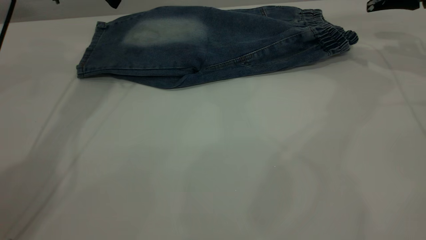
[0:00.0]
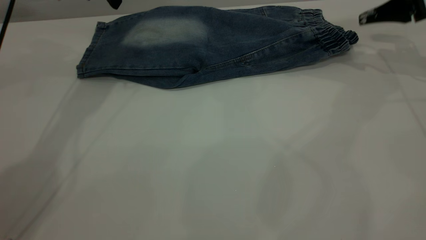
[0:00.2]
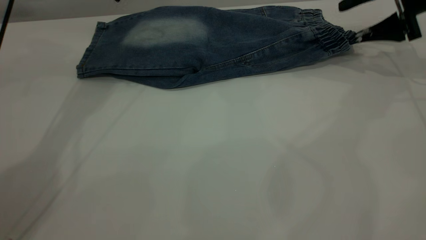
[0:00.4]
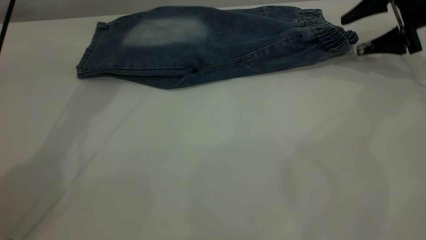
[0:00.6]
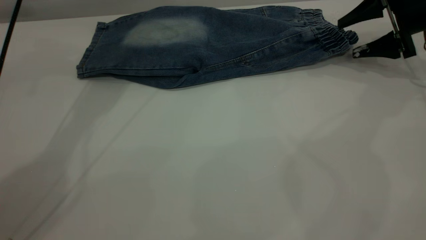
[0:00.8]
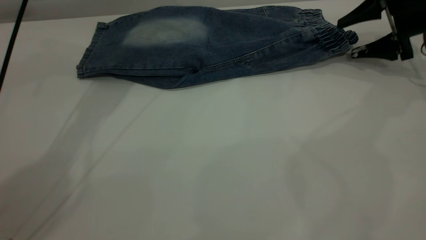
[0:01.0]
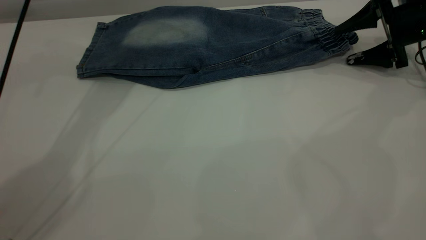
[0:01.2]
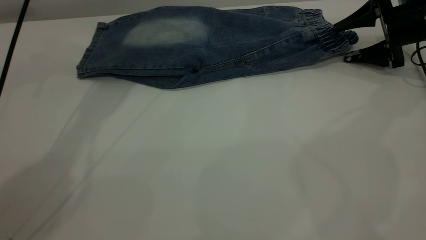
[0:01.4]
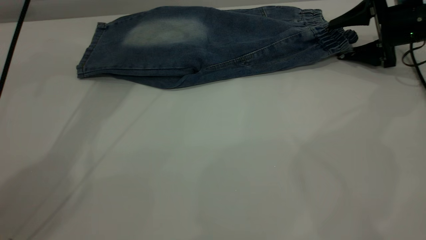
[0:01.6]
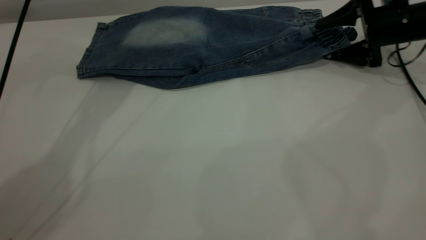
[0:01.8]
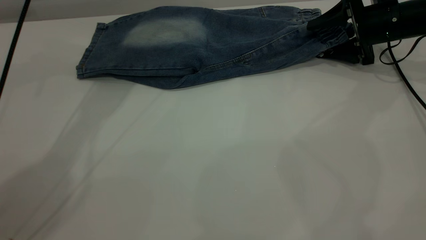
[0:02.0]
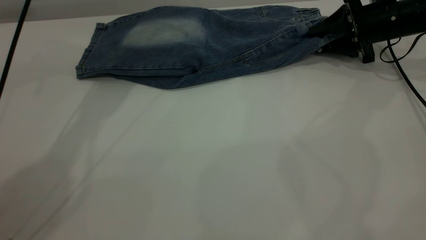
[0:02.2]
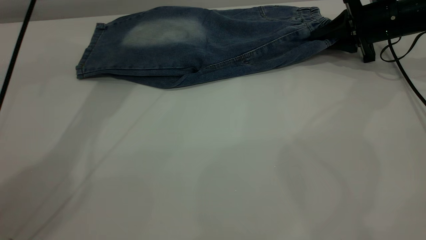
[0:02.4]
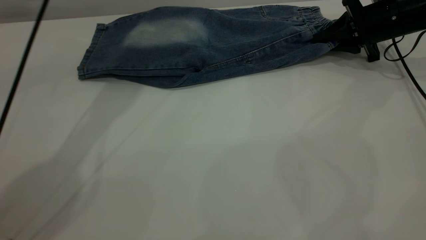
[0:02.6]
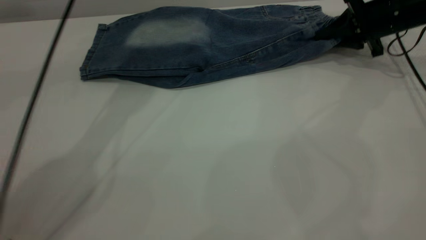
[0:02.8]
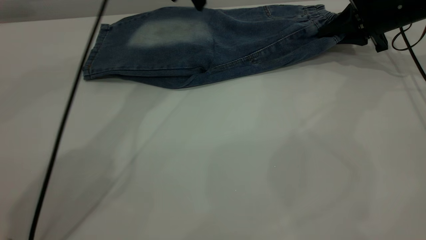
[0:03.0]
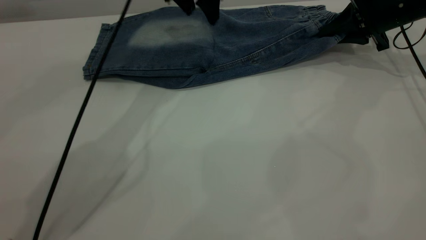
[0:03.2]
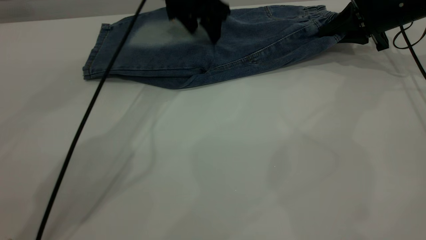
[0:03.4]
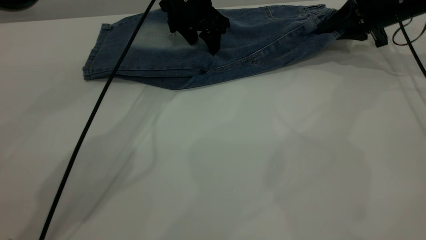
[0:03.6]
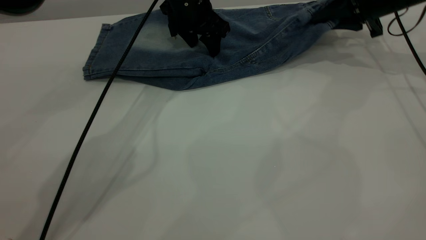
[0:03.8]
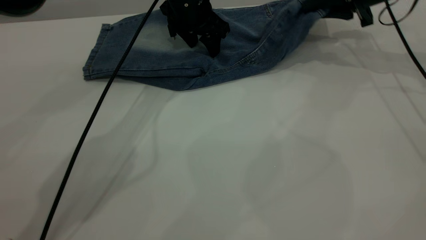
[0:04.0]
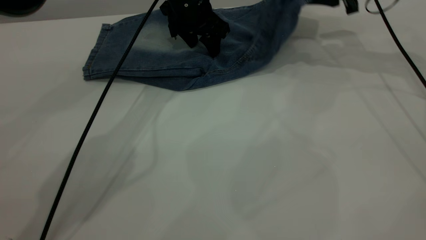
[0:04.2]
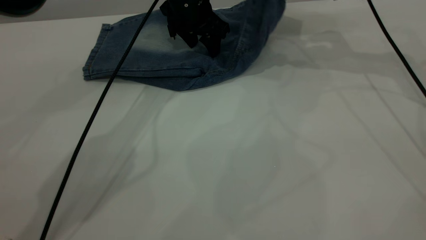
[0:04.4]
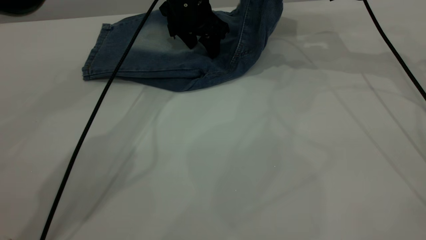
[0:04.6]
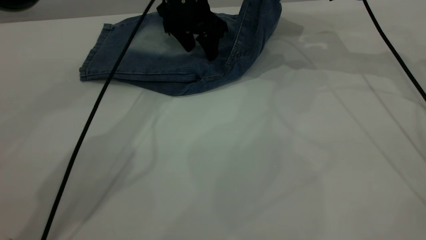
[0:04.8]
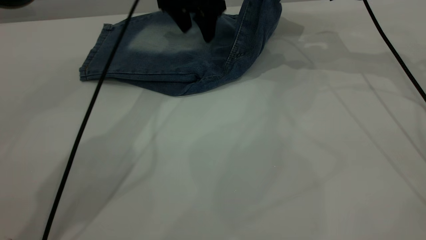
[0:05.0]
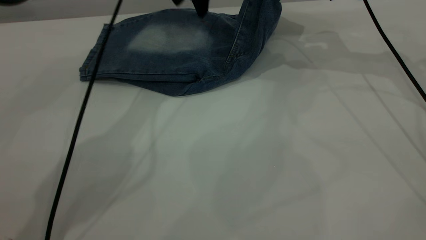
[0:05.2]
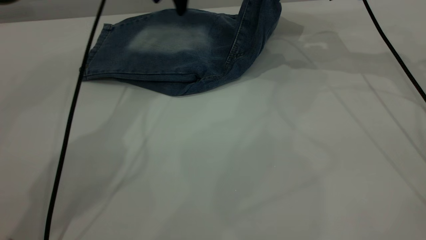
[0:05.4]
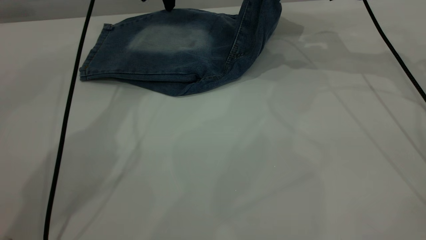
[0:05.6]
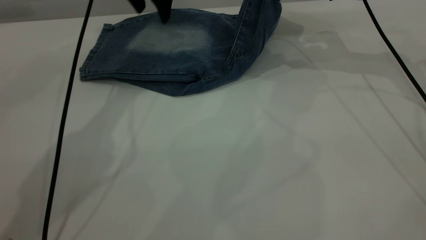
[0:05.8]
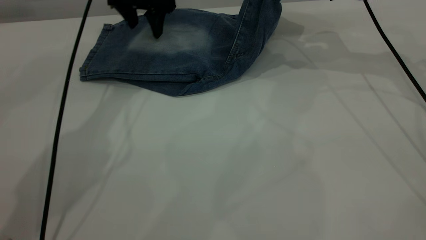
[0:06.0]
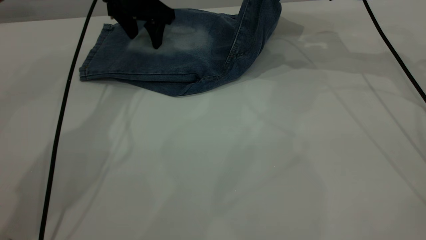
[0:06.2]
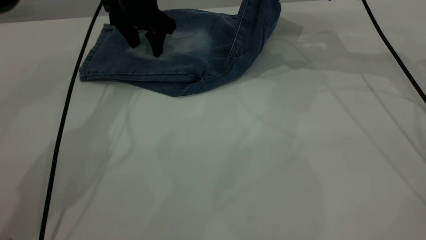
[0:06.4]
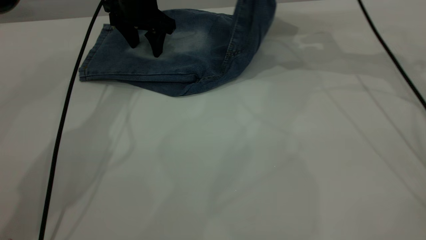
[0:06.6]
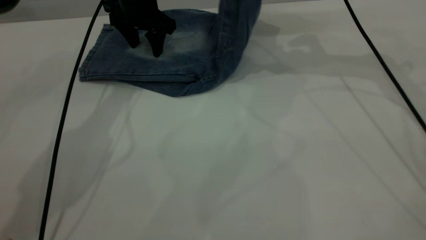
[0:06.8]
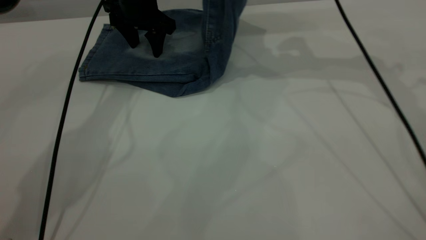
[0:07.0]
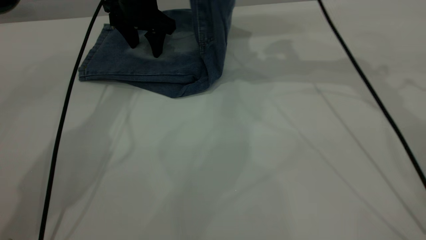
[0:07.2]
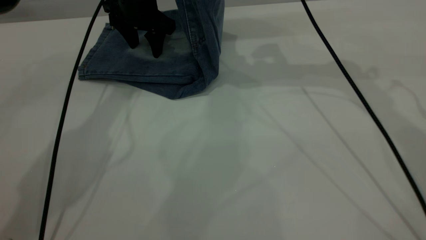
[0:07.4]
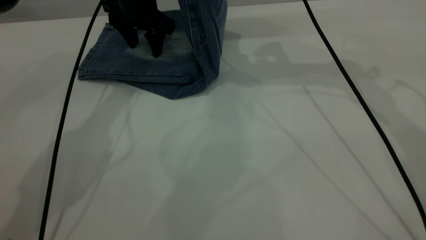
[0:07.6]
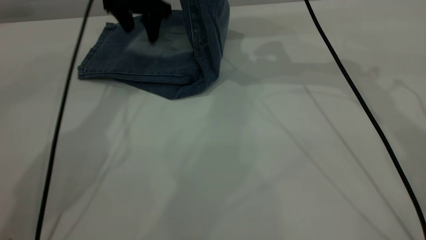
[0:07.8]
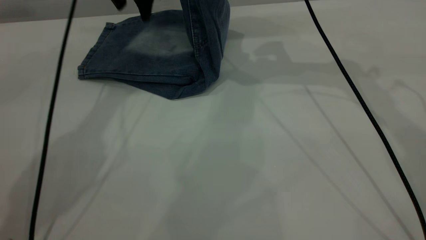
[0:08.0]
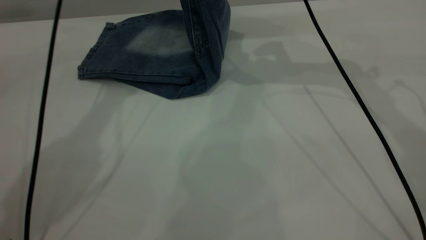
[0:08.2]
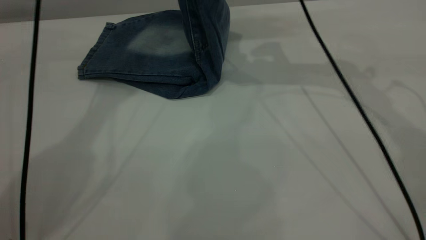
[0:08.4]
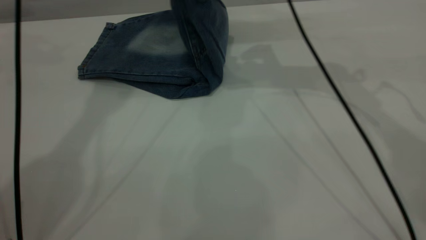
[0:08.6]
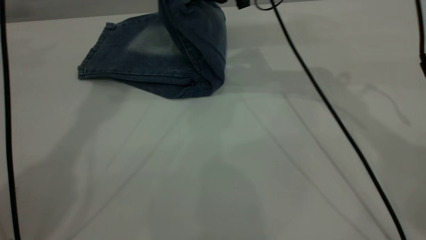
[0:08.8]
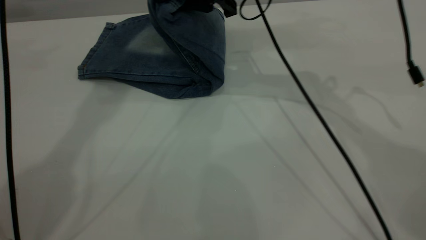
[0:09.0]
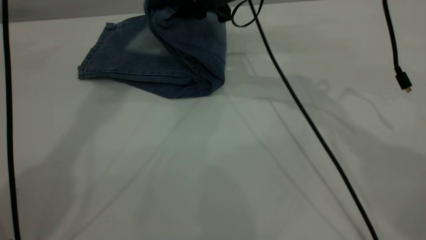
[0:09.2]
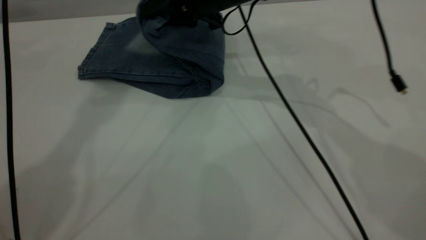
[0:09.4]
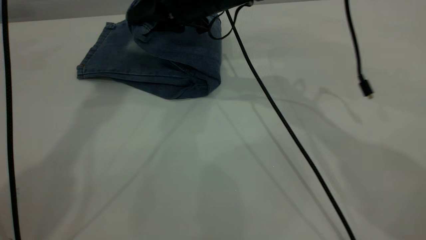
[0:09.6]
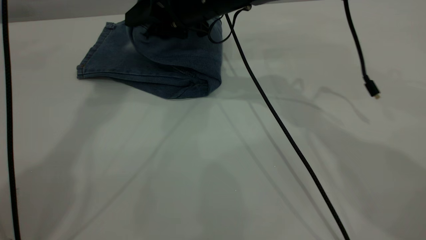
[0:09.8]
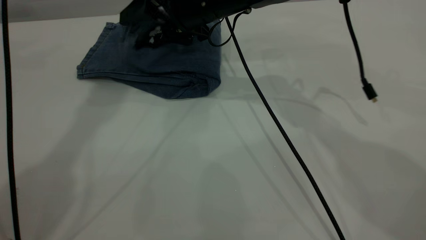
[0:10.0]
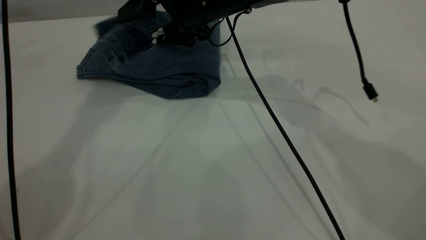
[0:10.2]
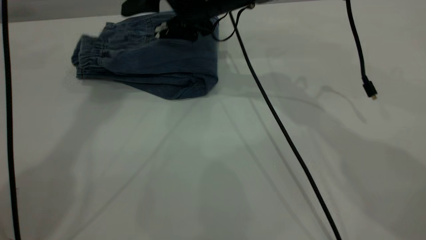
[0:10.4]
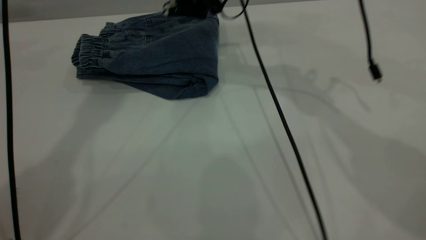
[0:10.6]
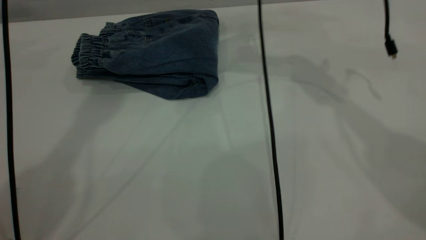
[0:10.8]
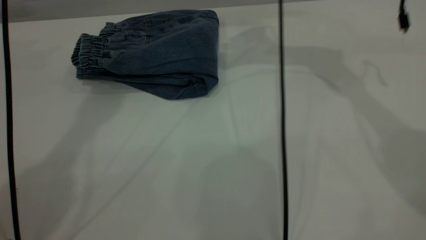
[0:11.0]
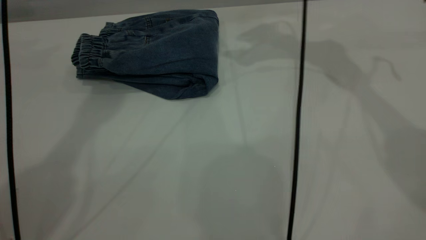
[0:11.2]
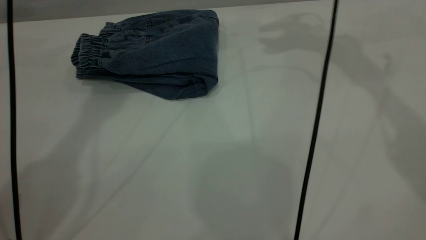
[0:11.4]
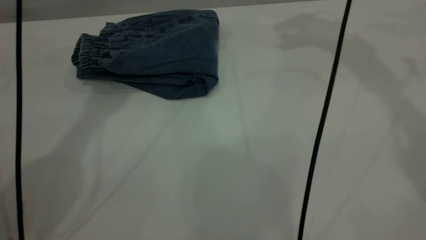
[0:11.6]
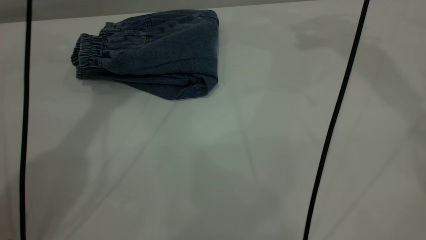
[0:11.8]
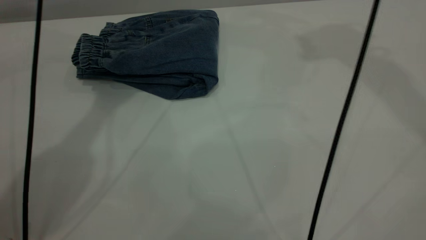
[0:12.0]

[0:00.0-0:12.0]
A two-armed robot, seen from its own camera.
Step, 0:00.0 to 0:10.8: Fold your pants from right to left.
0:00.0 to 0:01.6: The left gripper changes place by approximately 5 cm. Meanwhile the right gripper travels downward by about 10 cm.
0:01.6 to 0:03.0: The right gripper closes its fingers. The left gripper is displaced to the right and downward by about 10 cm.
0:03.0 to 0:04.4: The right gripper shifts approximately 15 cm upward and to the left. Meanwhile the left gripper travels downward by some 10 cm.
0:04.4 to 0:06.0: The left gripper goes some 10 cm to the left.
0:06.0 to 0:07.6: The right gripper shifts roughly 10 cm to the left.
0:07.6 to 0:09.0: The right gripper heads to the left, covering approximately 5 cm, while the left gripper travels upward by roughly 25 cm.
0:09.0 to 0:10.4: The right gripper opens up.
0:10.4 to 0:12.0: The right gripper is displaced upward and to the right by roughly 35 cm. The left gripper heads downward, covering about 10 cm.

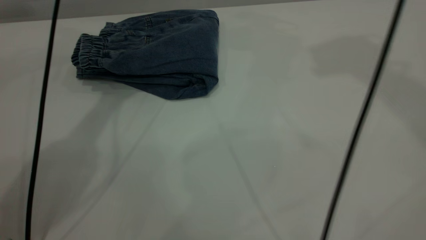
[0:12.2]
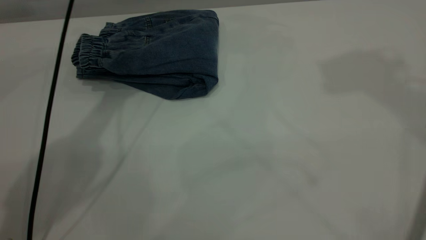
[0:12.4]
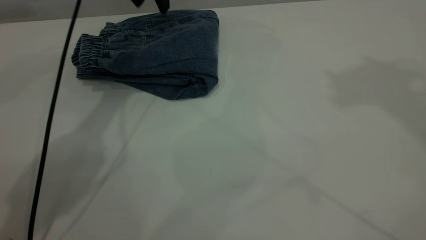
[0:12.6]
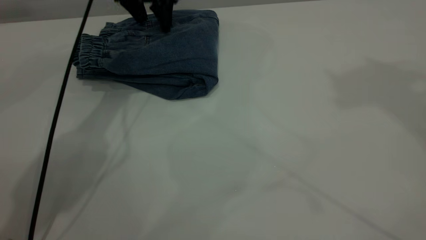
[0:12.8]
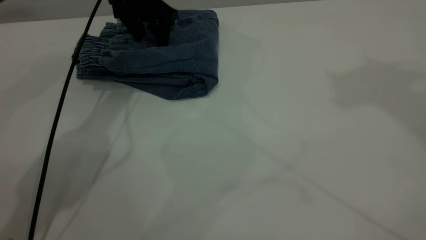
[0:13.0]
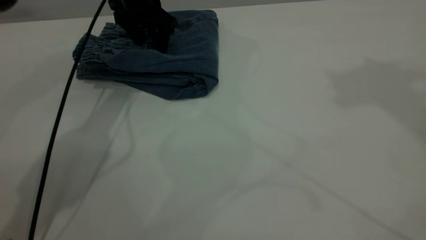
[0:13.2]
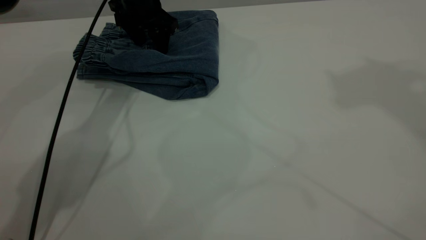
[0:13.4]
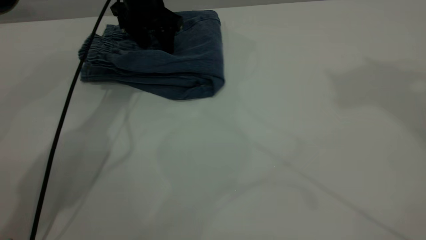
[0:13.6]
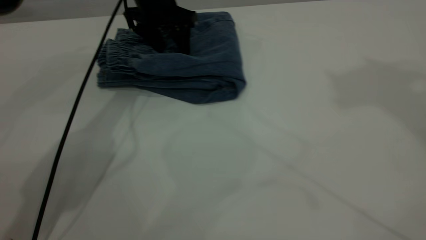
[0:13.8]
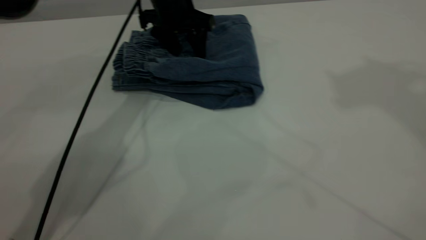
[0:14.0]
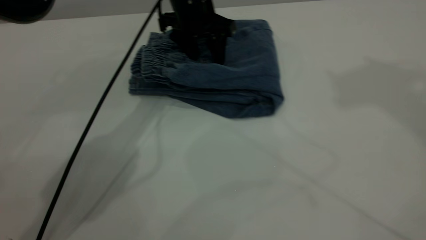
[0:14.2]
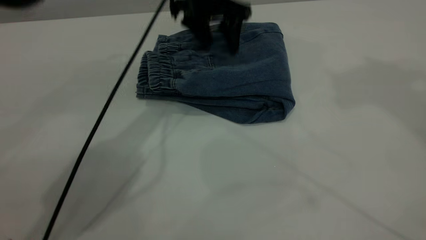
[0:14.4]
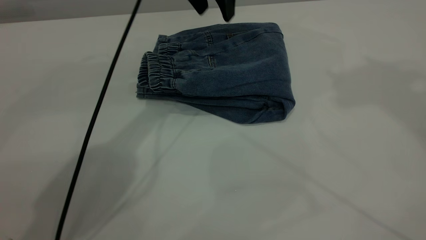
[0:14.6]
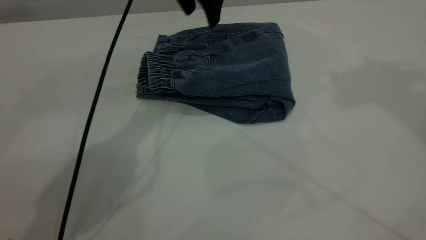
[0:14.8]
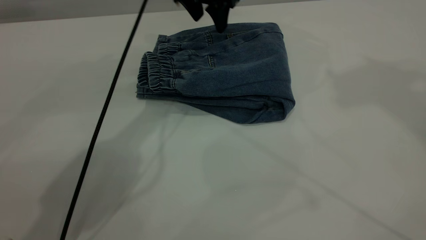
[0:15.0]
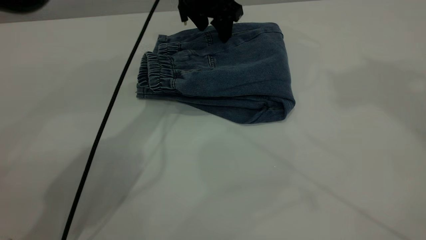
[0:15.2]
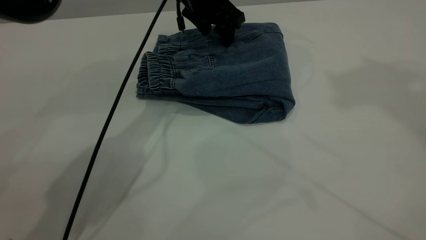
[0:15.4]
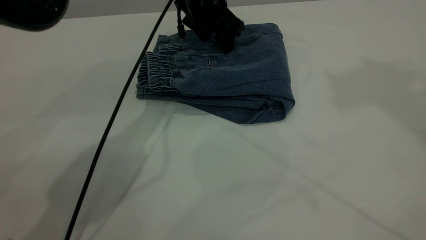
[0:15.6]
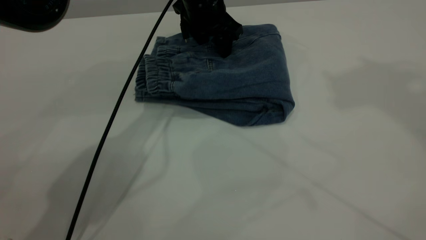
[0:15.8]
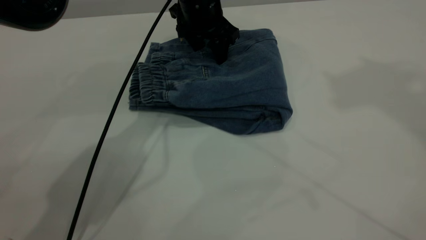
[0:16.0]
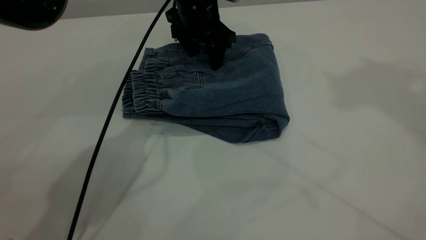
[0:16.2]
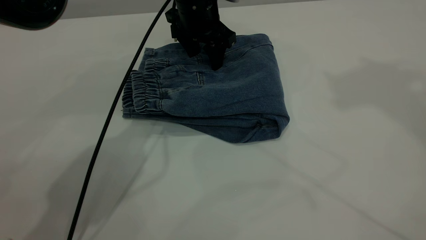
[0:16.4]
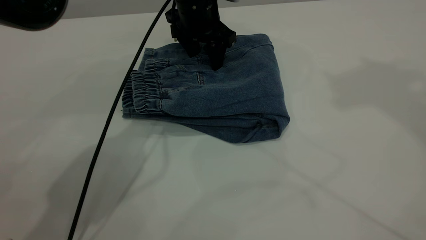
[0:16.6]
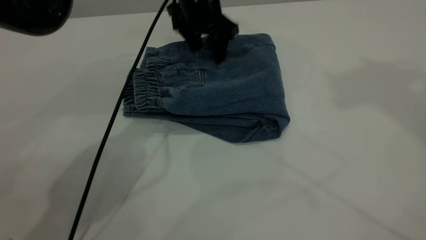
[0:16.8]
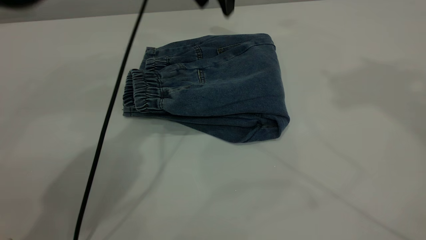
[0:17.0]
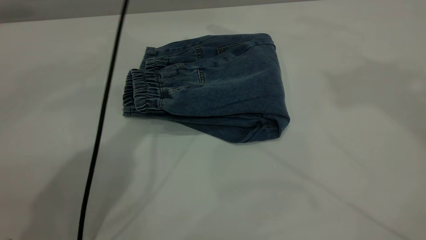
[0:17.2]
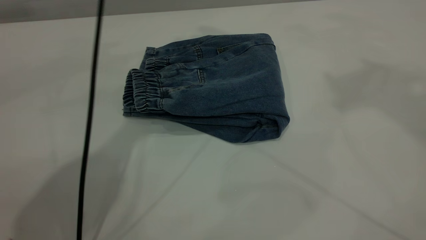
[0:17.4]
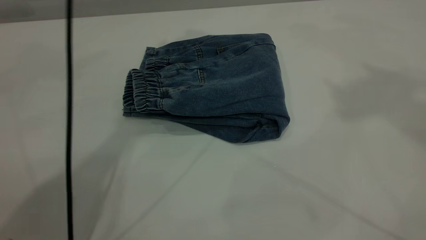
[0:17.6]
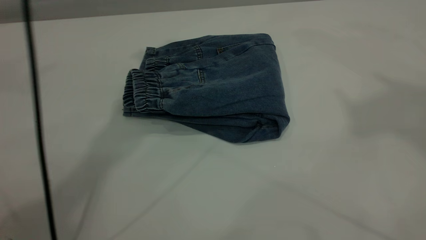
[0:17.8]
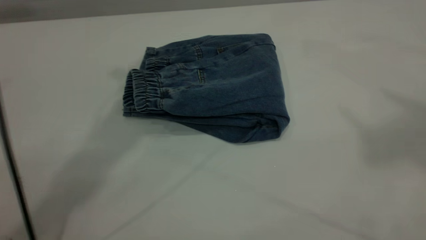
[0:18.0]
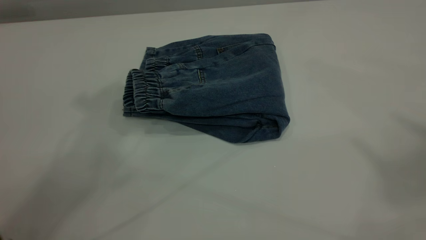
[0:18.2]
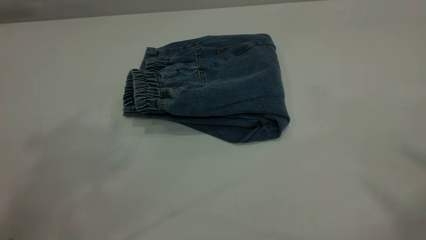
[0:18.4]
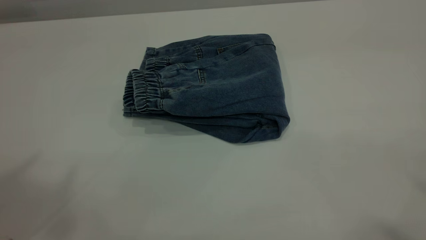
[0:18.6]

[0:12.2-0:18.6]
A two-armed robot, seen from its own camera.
0:12.2 to 0:13.8: The right gripper heads backward and upward, covering approximately 10 cm, while the left gripper goes approximately 15 cm downward.
0:13.8 to 0:15.4: The left gripper heads to the right, covering some 5 cm, and goes upward and returns, about 10 cm each way.
0:15.4 to 0:17.0: The left gripper shifts some 10 cm upward.
0:17.0 to 0:18.6: The left gripper heads backward, upward and to the left, covering approximately 50 cm.
